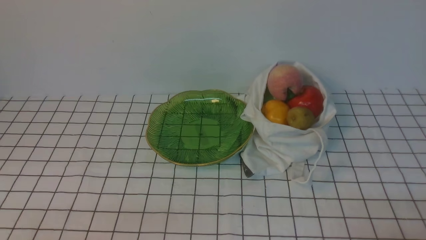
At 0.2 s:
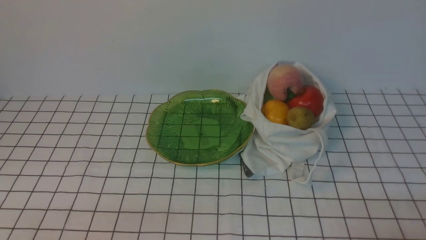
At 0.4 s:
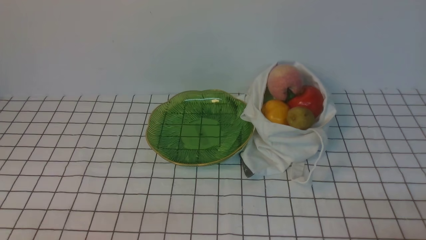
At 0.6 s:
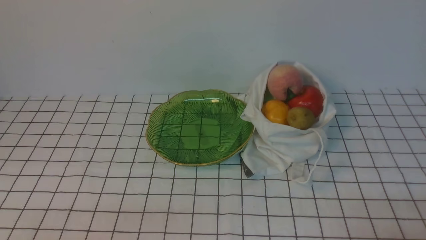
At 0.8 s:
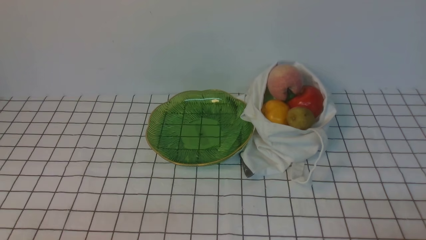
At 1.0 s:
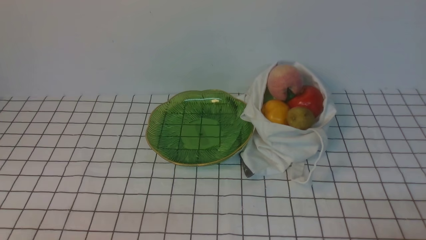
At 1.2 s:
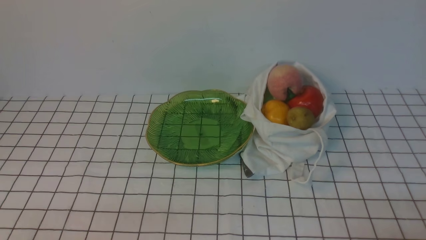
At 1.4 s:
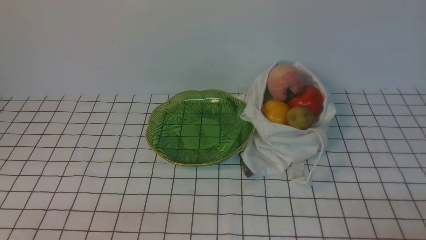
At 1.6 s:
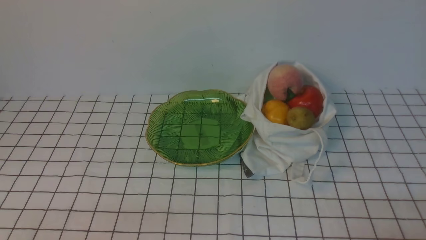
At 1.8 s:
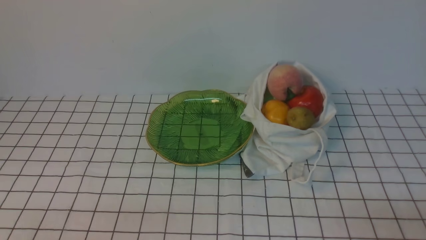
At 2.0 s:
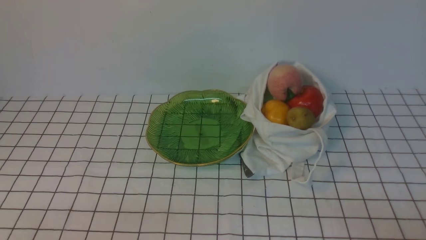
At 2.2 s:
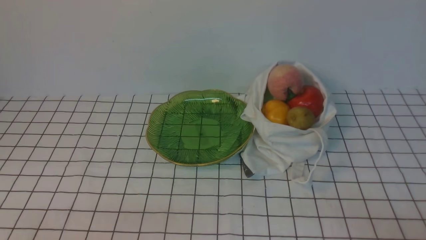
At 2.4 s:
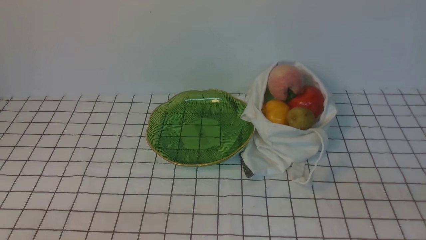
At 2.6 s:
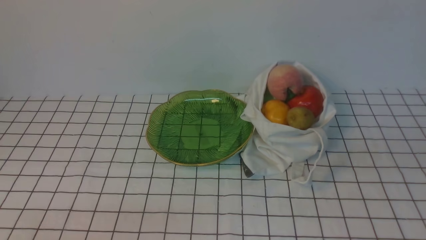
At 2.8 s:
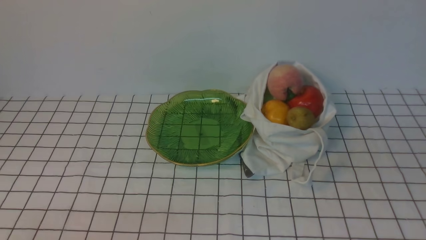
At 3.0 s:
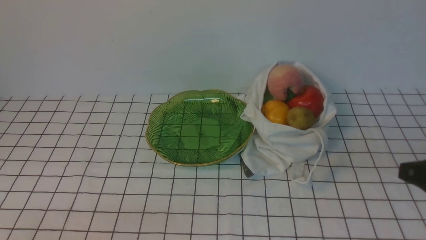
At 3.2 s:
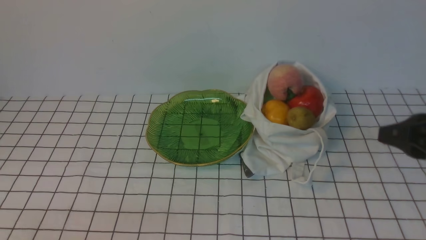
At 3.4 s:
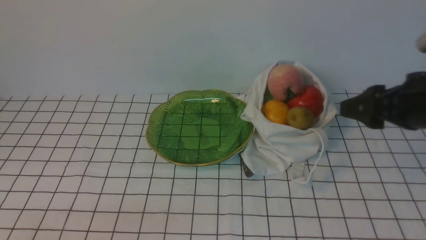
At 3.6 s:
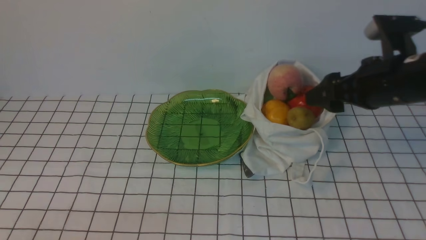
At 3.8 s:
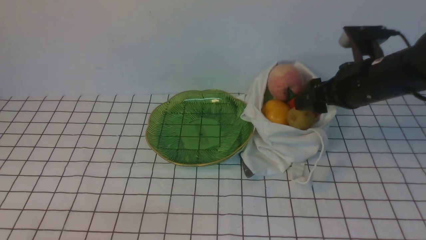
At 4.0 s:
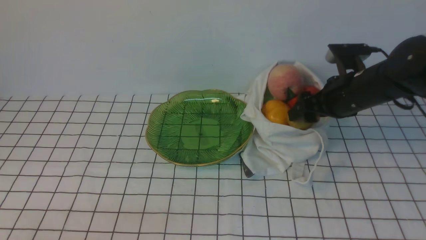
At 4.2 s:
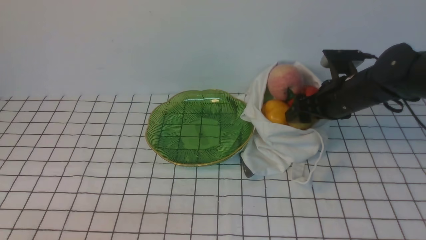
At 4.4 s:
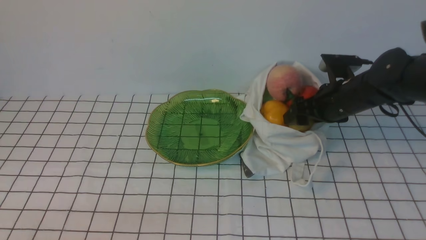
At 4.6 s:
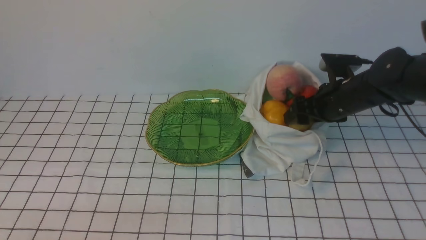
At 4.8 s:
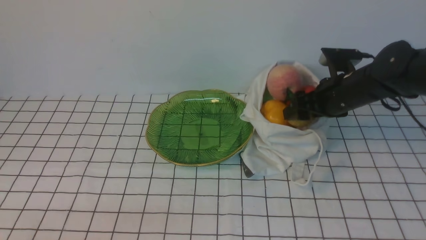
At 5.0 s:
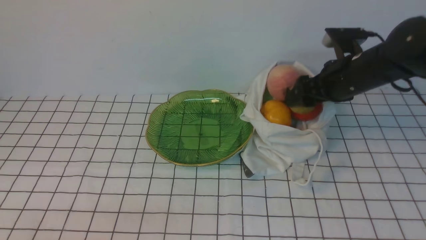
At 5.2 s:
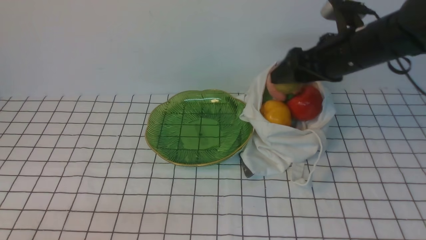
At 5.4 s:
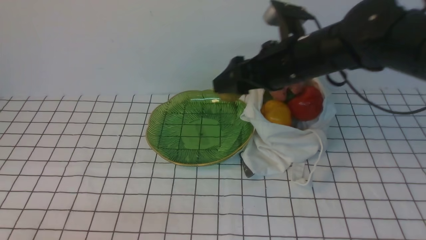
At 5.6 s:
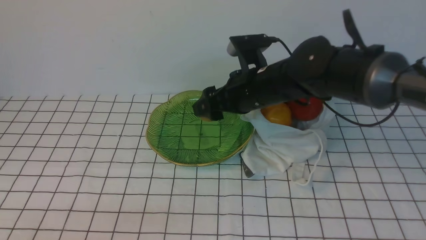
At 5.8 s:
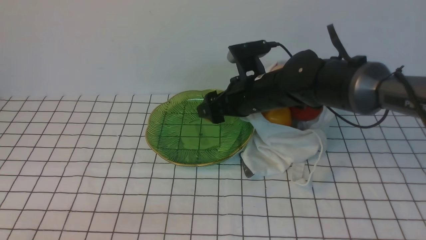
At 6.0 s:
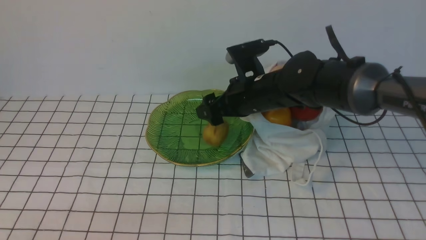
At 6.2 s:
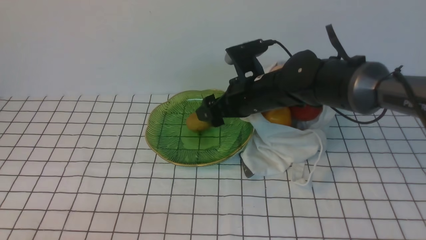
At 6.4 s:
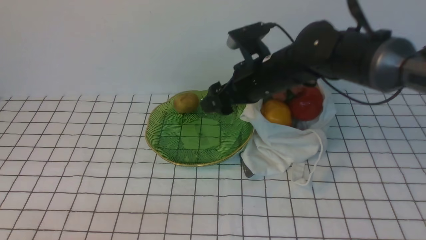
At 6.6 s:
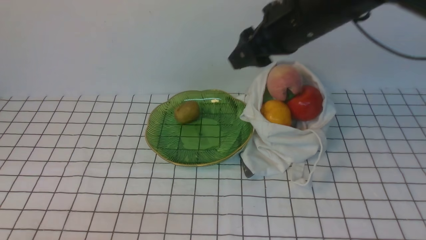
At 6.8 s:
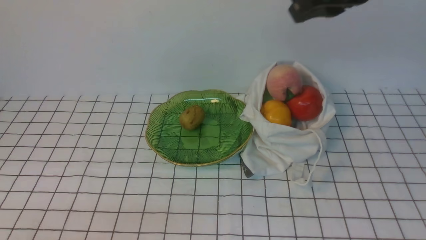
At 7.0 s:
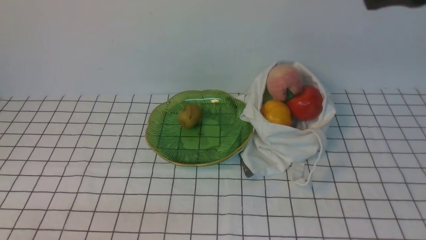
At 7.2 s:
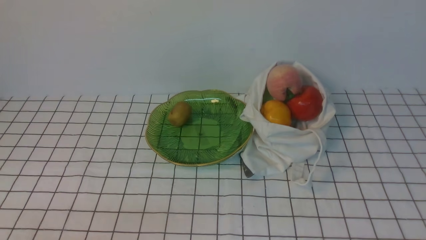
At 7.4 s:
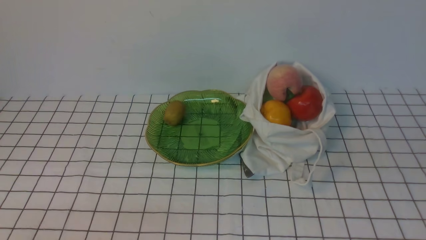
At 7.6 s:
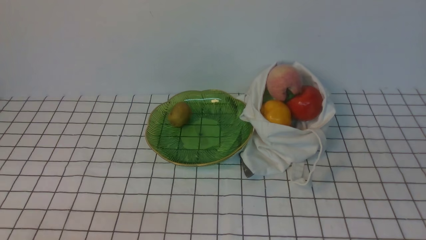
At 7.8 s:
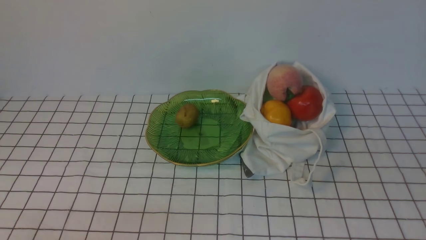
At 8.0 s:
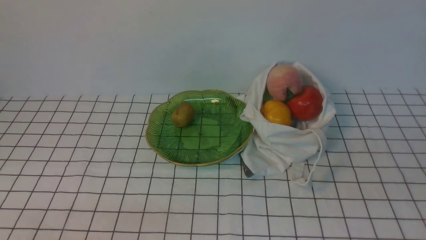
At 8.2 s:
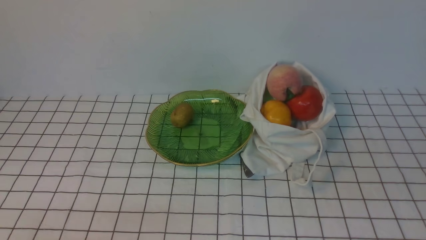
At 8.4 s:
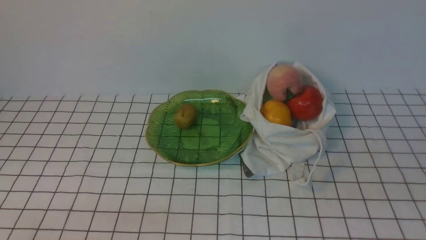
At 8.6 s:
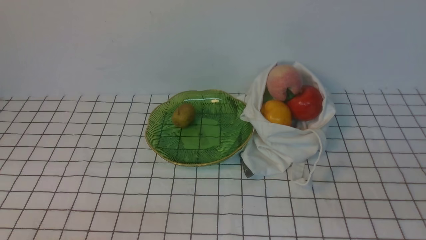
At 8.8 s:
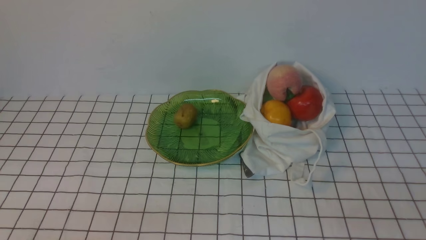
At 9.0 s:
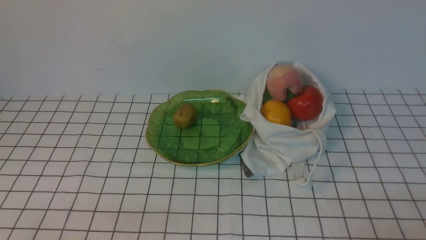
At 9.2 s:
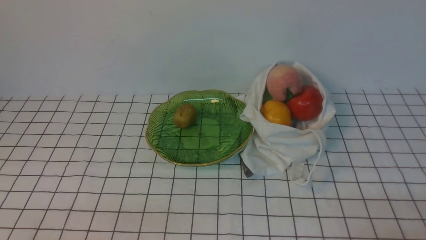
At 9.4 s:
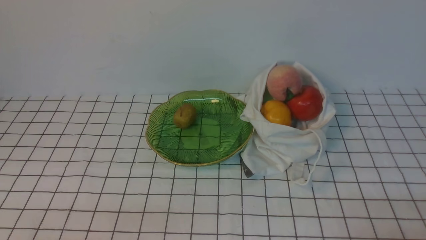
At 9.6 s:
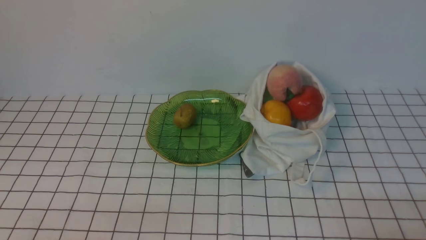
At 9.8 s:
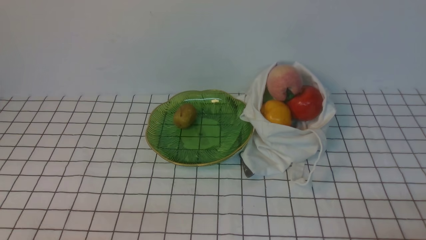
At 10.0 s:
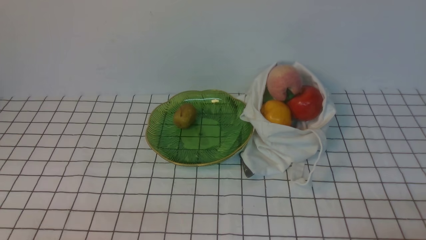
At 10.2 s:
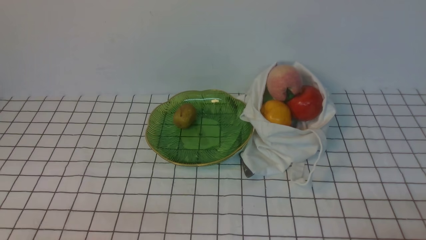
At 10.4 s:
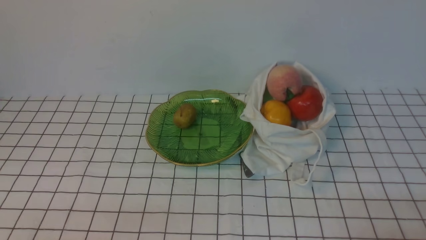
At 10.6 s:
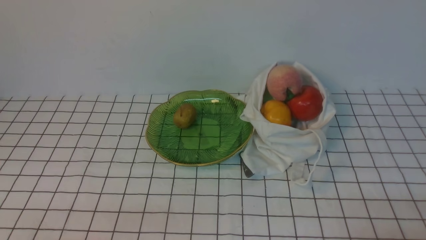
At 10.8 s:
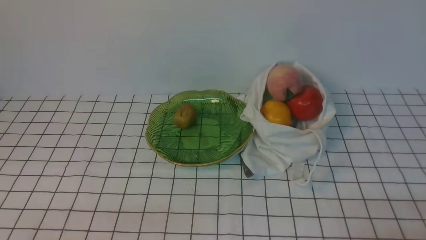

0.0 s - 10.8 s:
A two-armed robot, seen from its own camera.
Step, 0.0 s - 4.6 s: use the right arm to grab a kiwi from the bag.
Step, 4.8 s - 6.2 s: use the right arm to put the kiwi into the empty plate on the left.
1.6 s - 3.0 s: The right gripper goes approximately 15 cm upward and forward.
3.0 s - 4.6 s: The right gripper is displaced forward and downward by some 25 cm, and opens.
4.6 s - 6.2 s: The right gripper shifts roughly 15 cm to the left.
6.2 s - 7.8 s: The right gripper travels backward and to the right by approximately 35 cm, and closes.
9.2 s - 10.8 s: Both grippers stay put.

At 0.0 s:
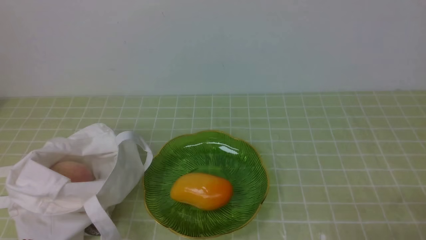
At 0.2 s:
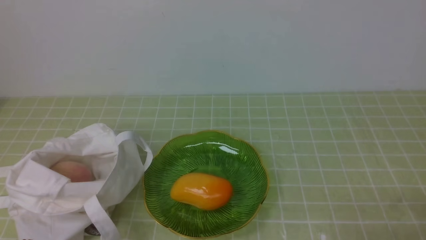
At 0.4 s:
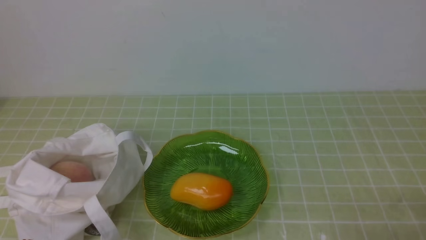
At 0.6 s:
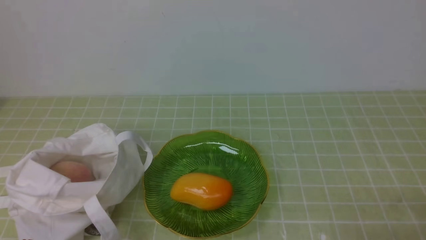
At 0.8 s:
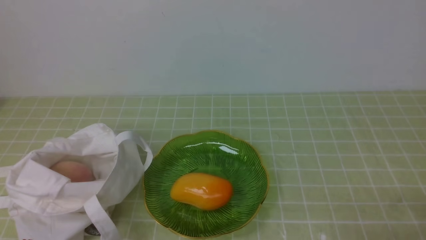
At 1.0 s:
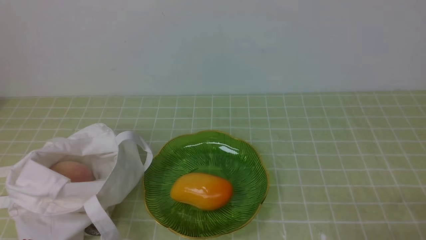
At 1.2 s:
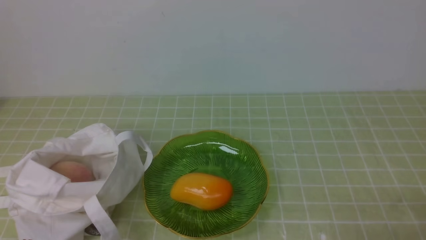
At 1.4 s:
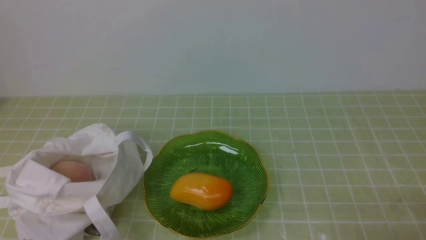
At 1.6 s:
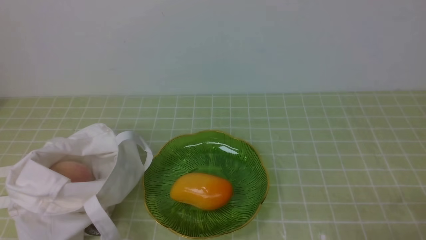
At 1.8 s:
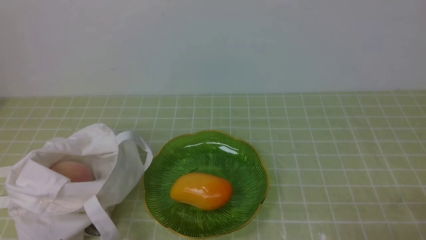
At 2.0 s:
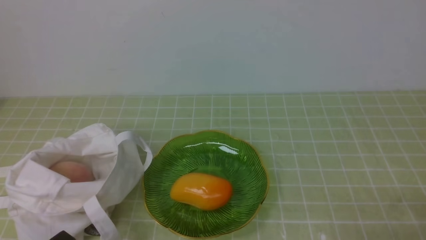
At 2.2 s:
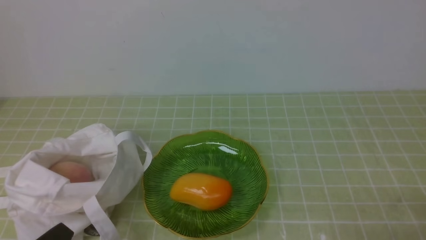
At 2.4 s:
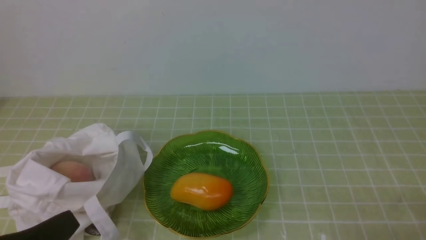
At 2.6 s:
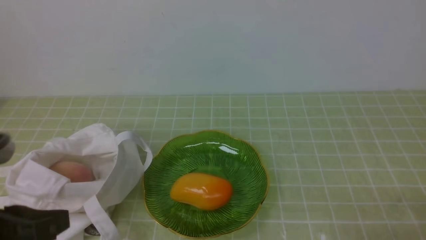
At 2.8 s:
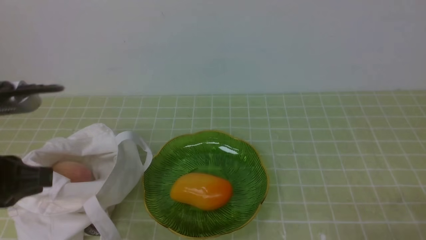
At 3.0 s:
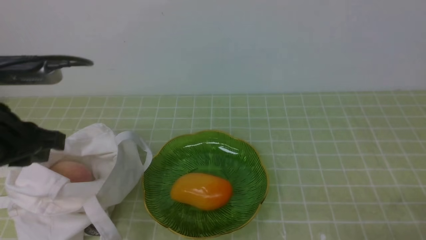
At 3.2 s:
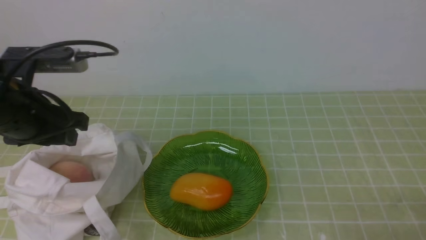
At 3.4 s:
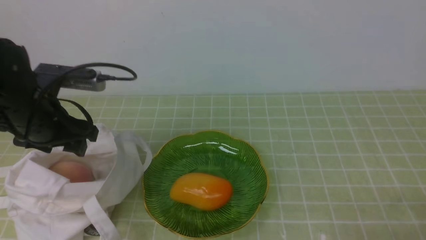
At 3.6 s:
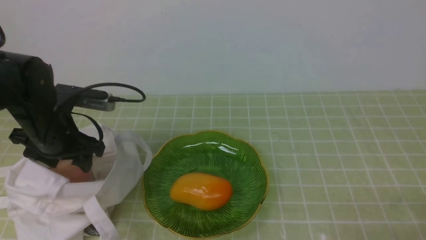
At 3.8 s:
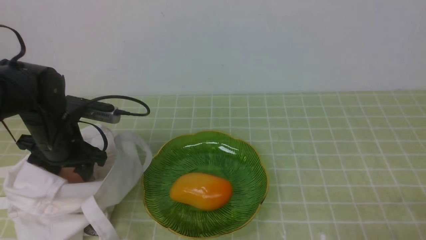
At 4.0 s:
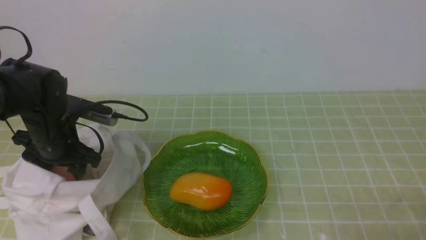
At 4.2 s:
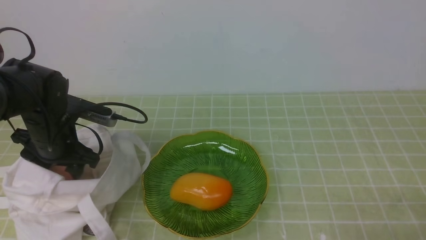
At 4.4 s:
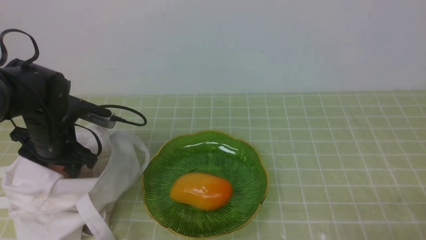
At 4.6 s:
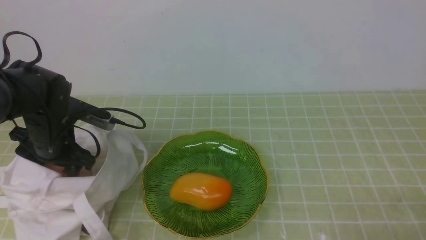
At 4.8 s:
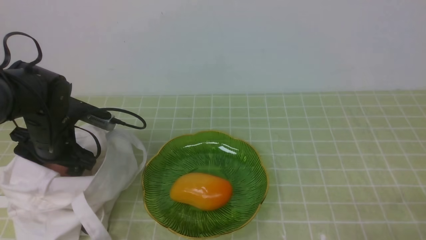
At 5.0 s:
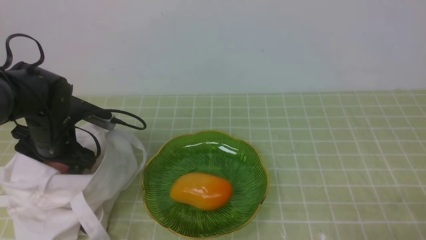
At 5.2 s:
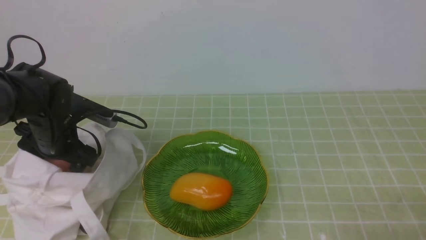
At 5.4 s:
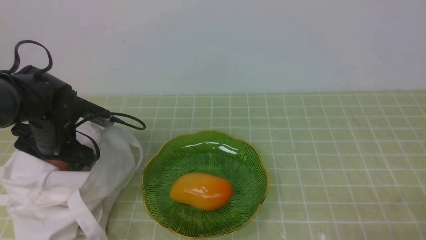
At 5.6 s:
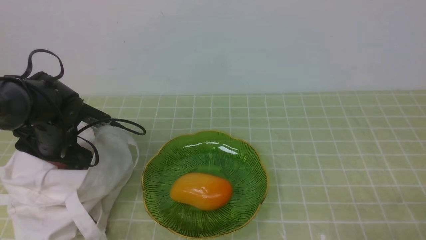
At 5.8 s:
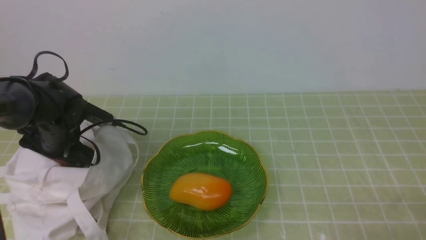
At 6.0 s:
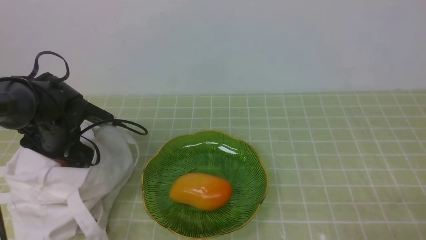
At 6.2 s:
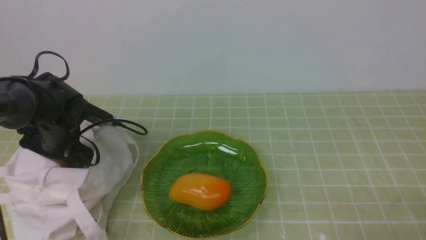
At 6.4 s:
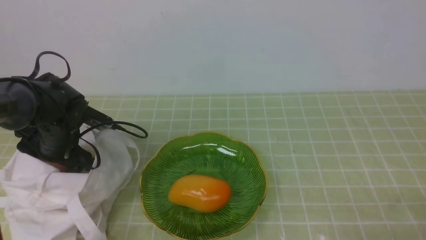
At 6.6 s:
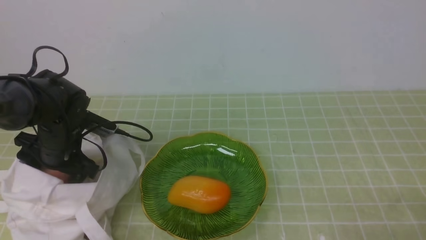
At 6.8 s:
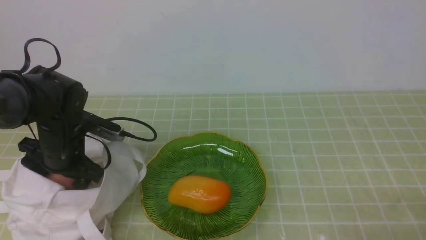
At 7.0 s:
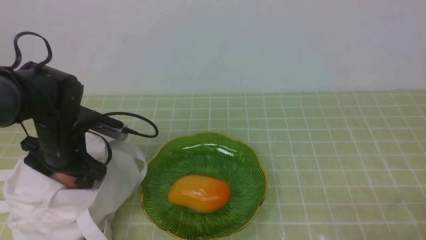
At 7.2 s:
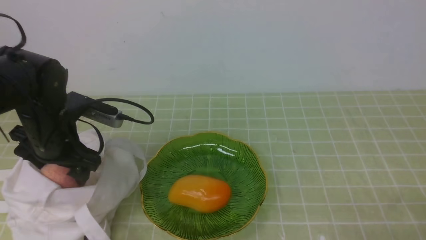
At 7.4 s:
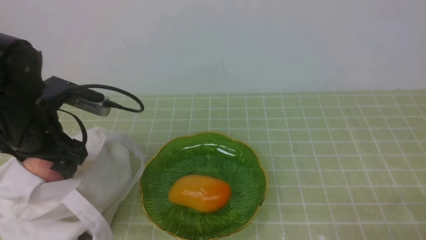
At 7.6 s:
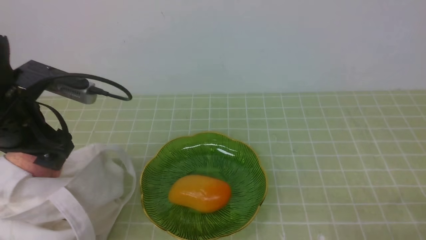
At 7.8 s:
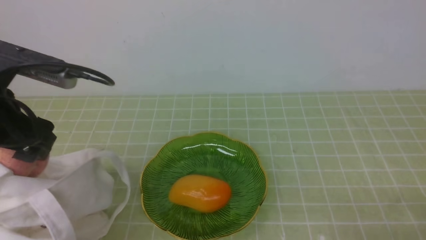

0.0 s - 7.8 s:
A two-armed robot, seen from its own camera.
Step, 0.0 s - 6.6 s: use the left arm to grab a peach from the bag.
1.6 s - 3.2 s: The left gripper travels forward and upward by approximately 25 cm, and opens.
3.2 s - 4.6 s: The left gripper is displaced downward and forward by some 15 cm, and opens its fingers.
4.6 s - 6.2 s: There are only small adjustments of the grippers.
6.2 s - 7.8 s: The left gripper heads upward and backward, covering some 20 cm.
